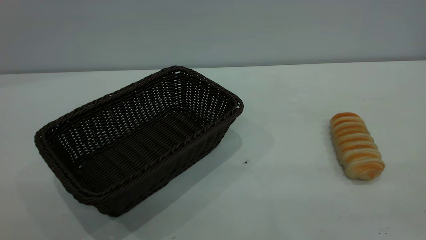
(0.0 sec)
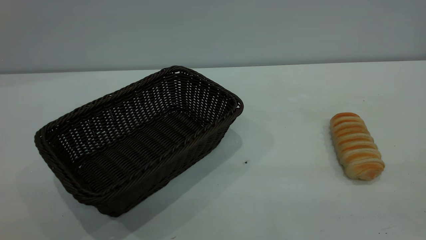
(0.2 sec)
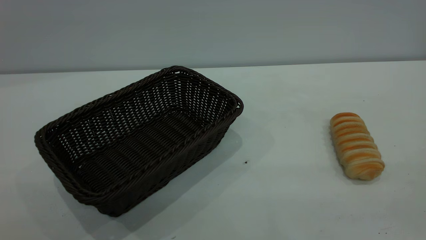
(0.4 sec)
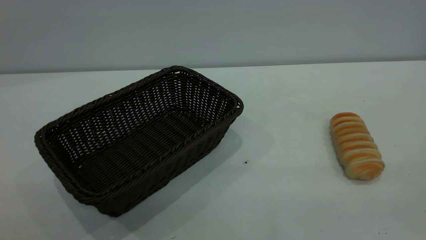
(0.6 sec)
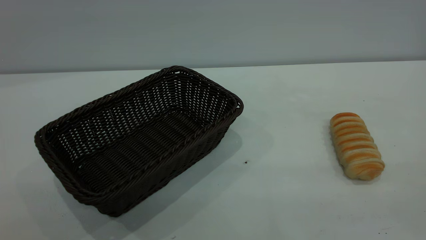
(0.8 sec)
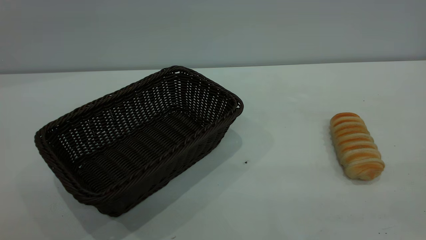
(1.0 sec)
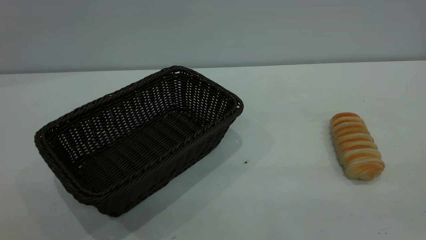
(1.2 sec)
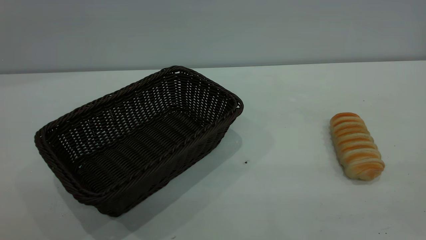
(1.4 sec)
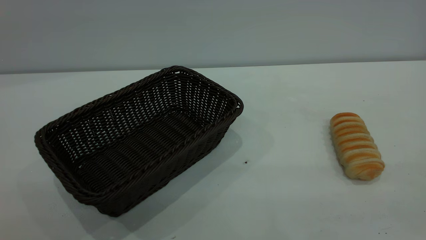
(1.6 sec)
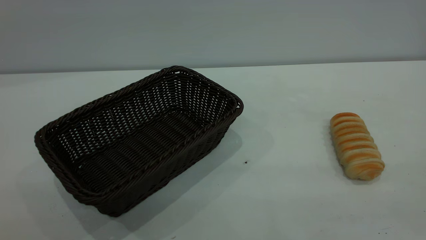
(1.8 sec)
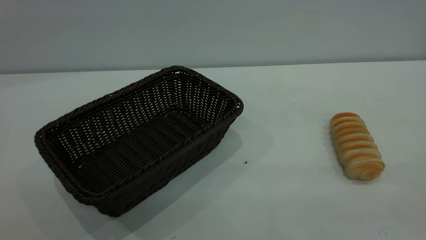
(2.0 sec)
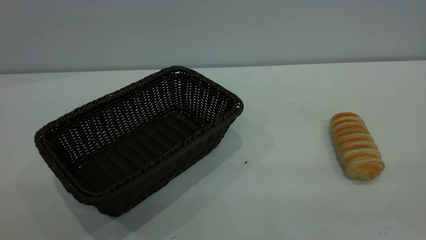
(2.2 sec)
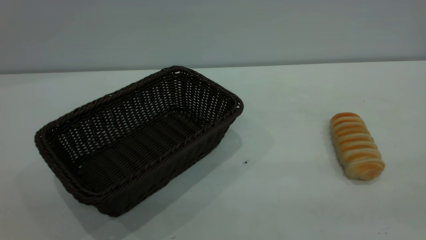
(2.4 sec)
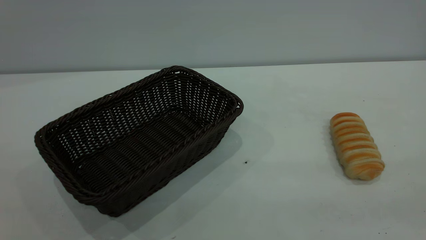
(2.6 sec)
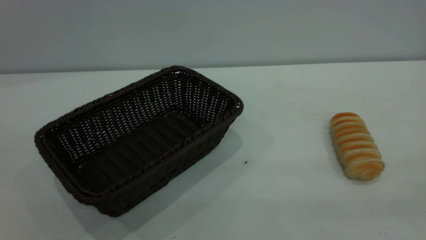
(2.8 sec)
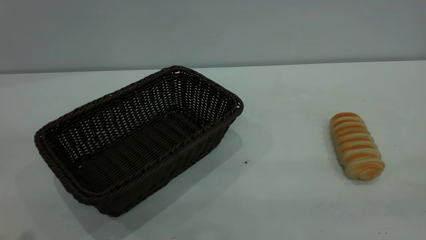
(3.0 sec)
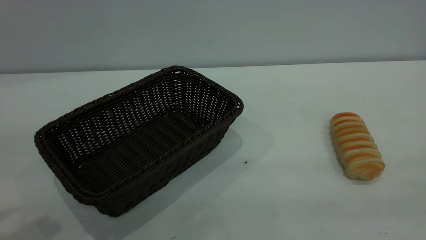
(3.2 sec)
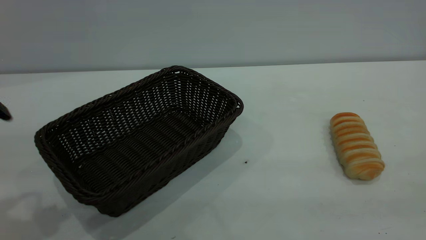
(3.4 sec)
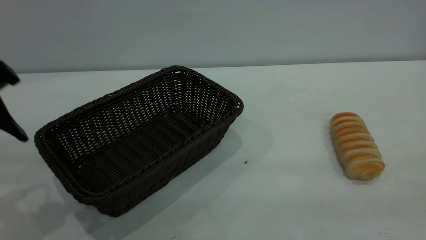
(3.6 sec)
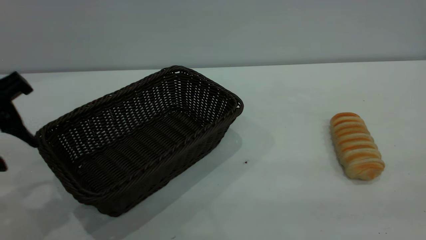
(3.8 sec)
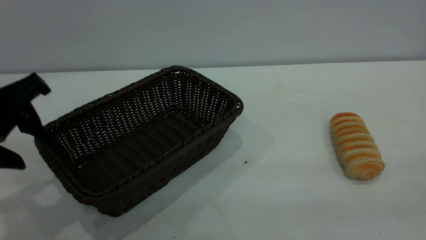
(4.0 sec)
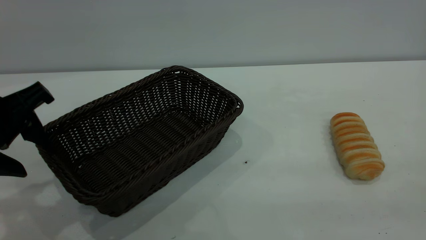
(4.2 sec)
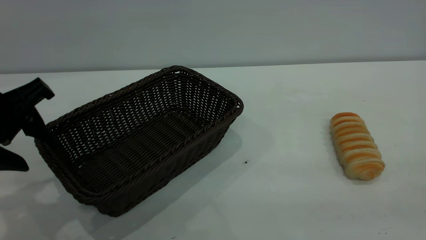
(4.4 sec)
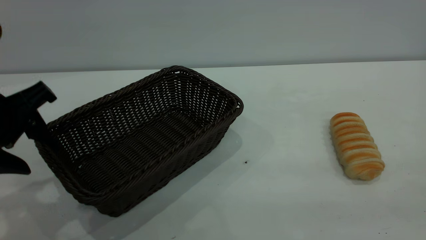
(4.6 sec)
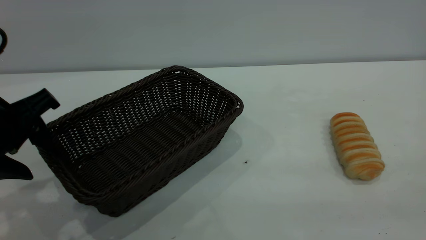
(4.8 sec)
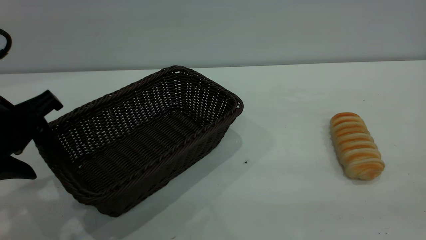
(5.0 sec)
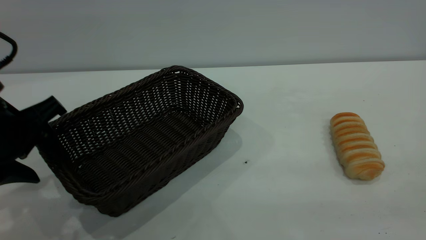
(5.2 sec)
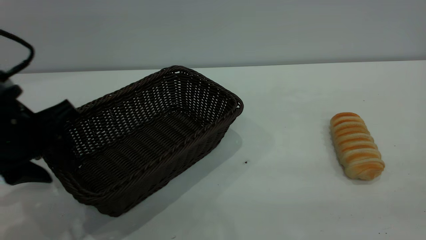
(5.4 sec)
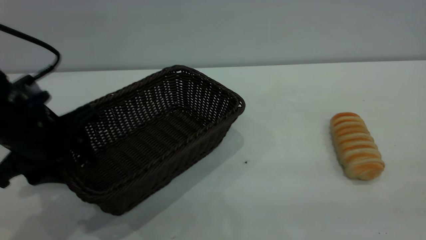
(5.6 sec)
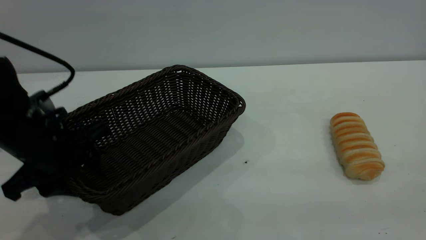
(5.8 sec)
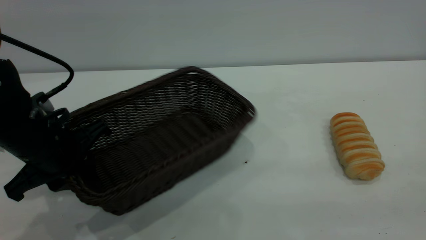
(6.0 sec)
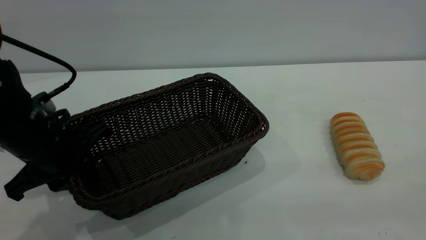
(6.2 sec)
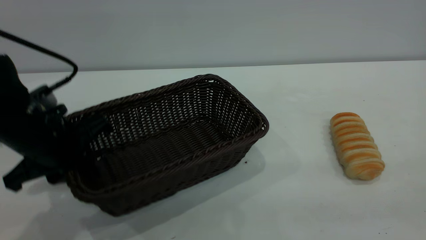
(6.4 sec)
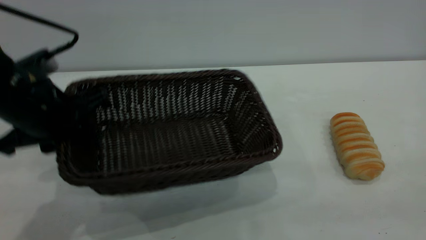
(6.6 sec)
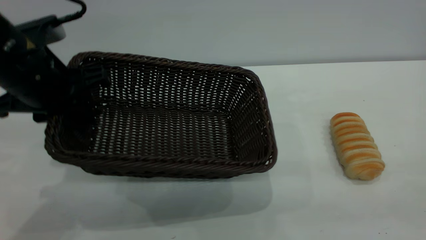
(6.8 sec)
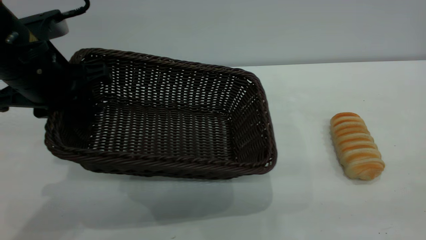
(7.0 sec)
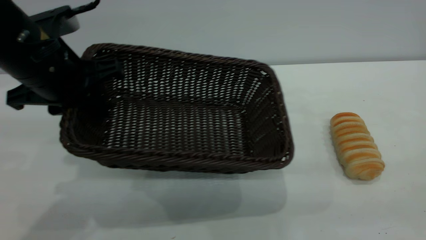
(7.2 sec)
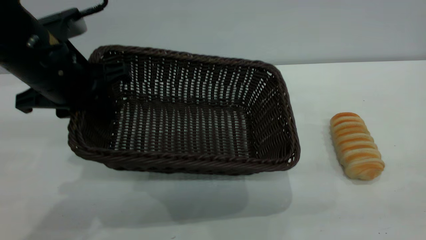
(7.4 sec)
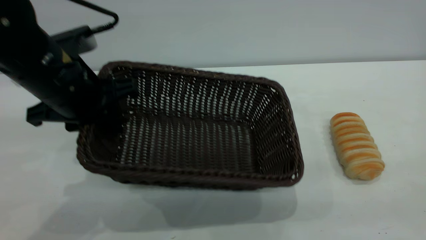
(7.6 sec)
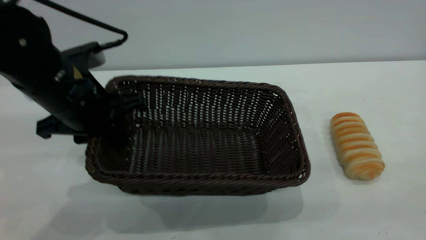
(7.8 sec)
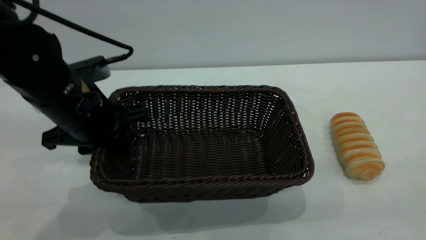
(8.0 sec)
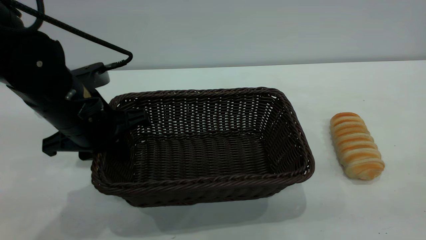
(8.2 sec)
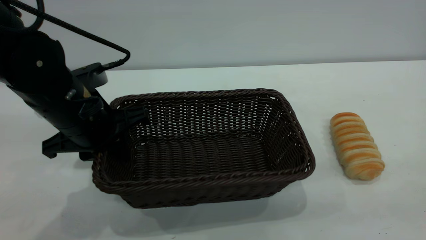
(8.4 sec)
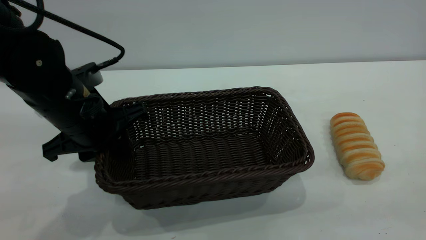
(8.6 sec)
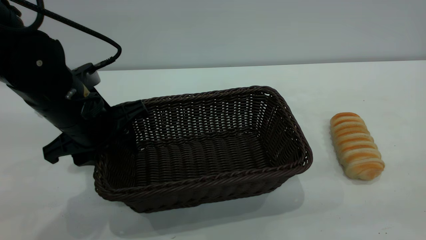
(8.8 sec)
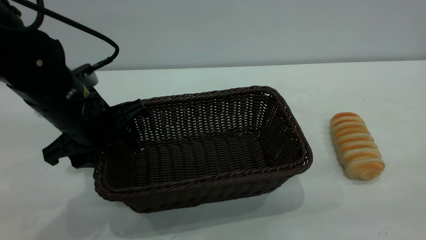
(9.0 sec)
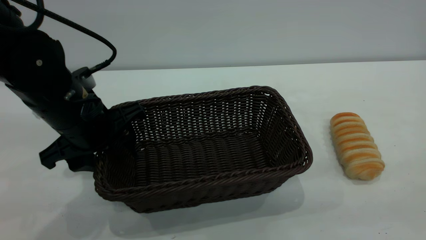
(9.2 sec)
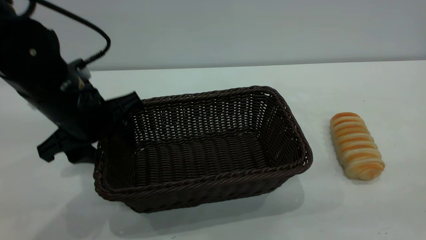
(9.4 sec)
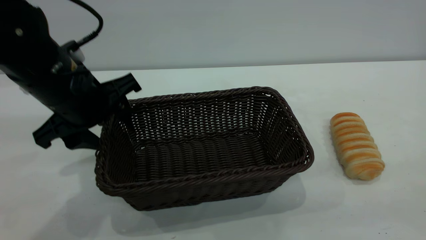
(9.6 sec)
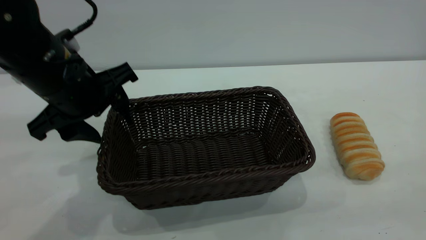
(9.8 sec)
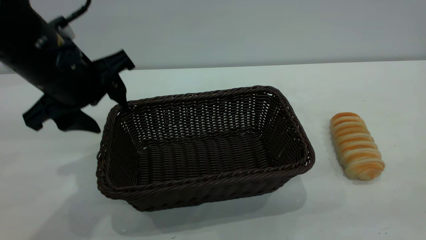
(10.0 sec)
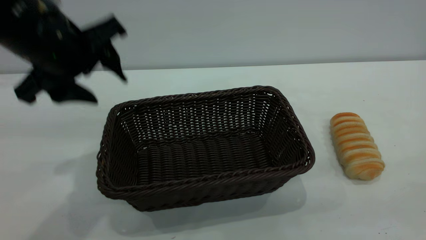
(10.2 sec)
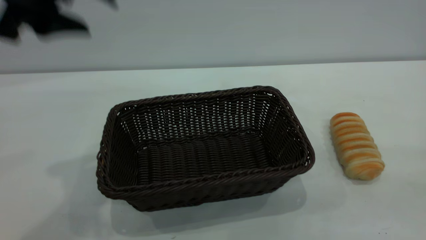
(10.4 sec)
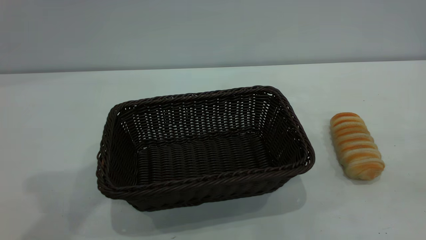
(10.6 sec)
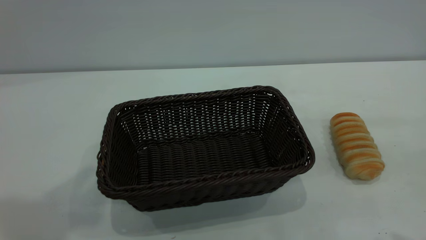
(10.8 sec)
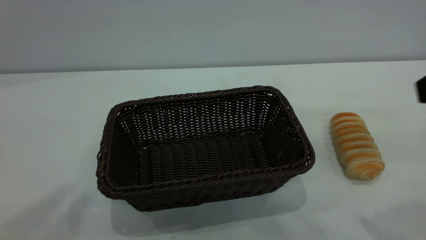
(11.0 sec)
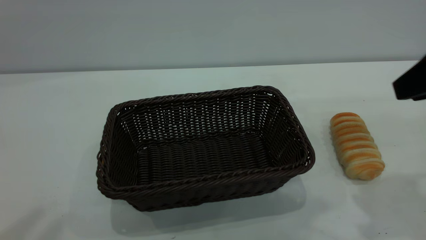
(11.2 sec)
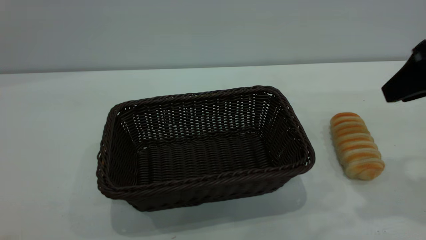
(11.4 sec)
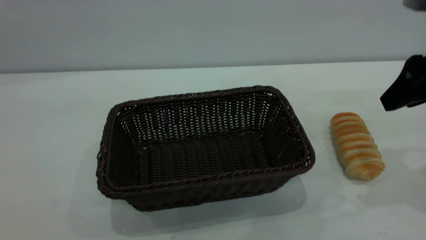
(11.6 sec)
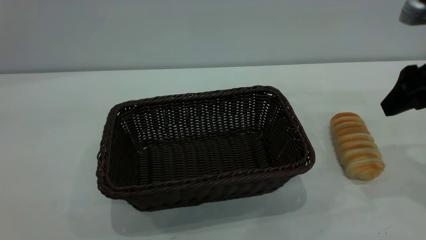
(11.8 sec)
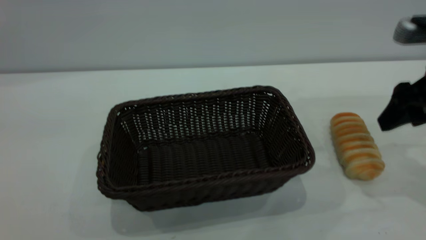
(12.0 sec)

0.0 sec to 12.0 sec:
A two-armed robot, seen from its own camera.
Task of the whole recording: One hand grasps the black basket and places it in the middle of the table, while the other hand picks up the long bread and puts it into the black basket.
Step, 0.0 sec to 10.0 sec: Move the basket to the center of view.
0.0 sec to 1.6 sec: Both grippers stay about where they are.
3.0 sec to 4.4 sec: The left gripper goes approximately 15 cm downward and forward.
4.4 sec to 6.0 sec: The left gripper goes roughly 10 cm downward, and closes.
6.0 sec to 7.6 sec: The left gripper shifts roughly 5 cm upward.
7.6 sec to 9.0 sec: The left gripper opens.
9.0 sec to 10.4 sec: The left gripper heads upward, covering approximately 20 cm.
10.4 sec to 12.0 sec: The left gripper heads backward and upward, covering roughly 35 cm, while the right gripper goes about 30 cm forward and downward, and opens.

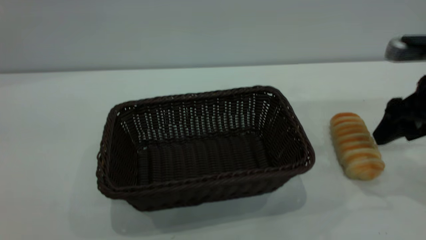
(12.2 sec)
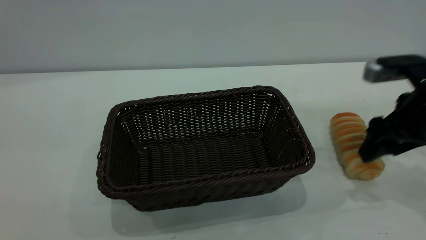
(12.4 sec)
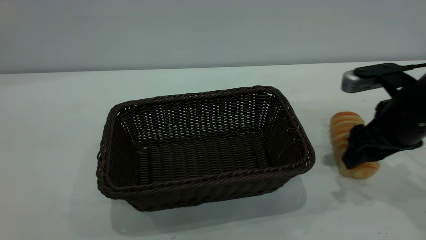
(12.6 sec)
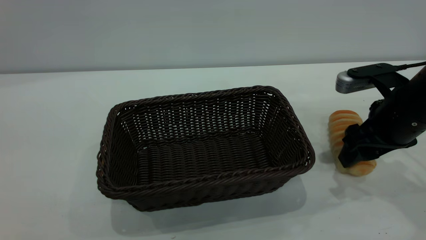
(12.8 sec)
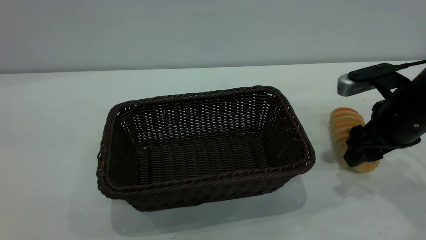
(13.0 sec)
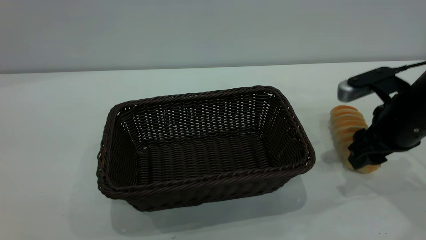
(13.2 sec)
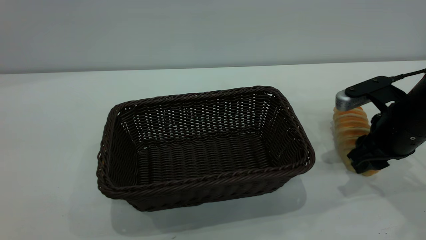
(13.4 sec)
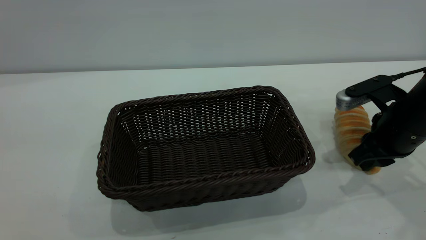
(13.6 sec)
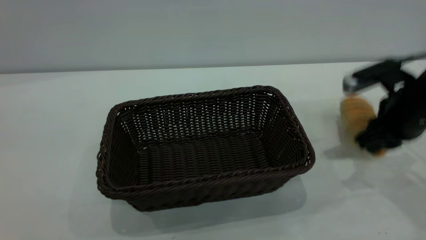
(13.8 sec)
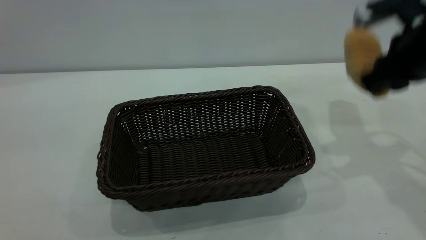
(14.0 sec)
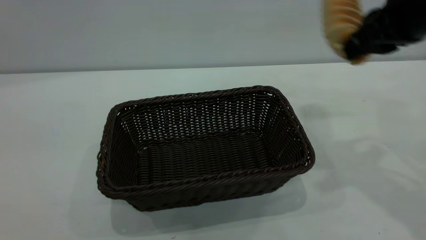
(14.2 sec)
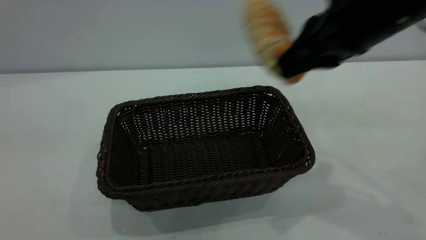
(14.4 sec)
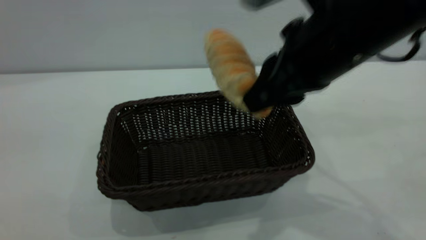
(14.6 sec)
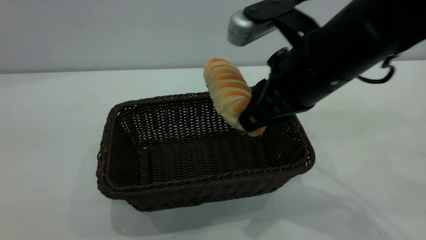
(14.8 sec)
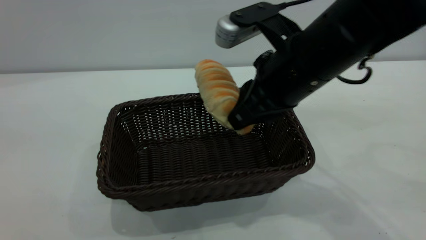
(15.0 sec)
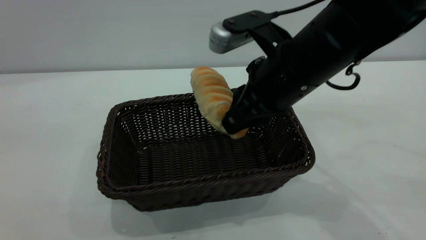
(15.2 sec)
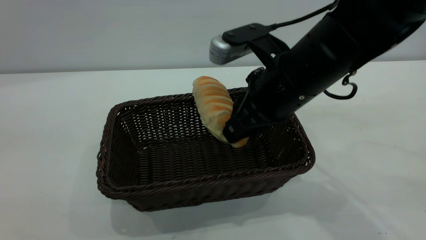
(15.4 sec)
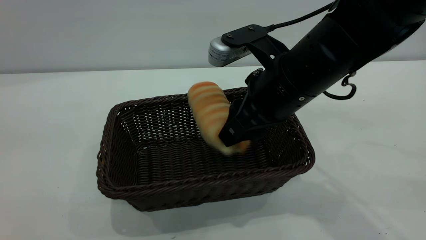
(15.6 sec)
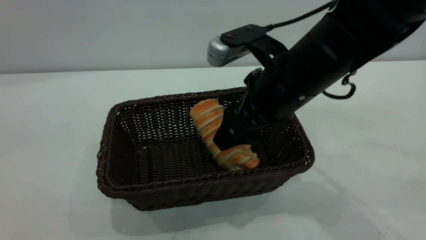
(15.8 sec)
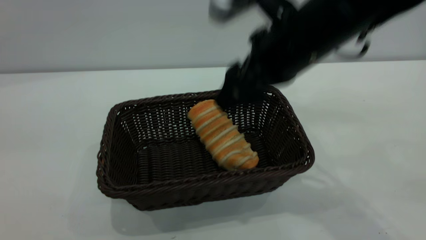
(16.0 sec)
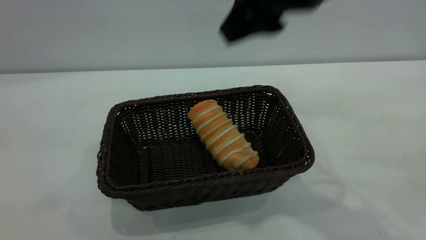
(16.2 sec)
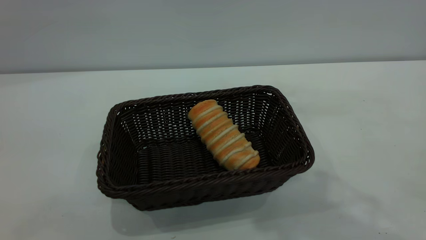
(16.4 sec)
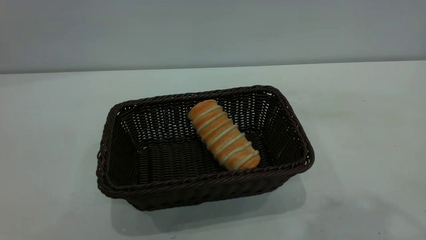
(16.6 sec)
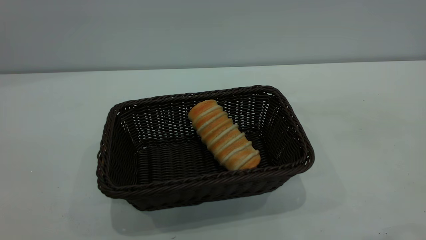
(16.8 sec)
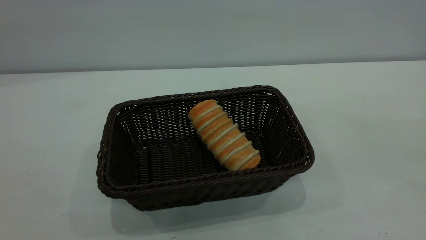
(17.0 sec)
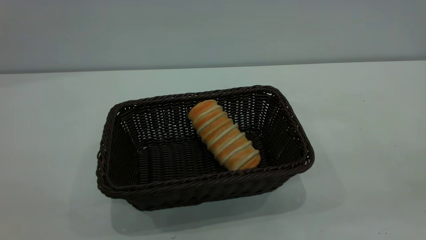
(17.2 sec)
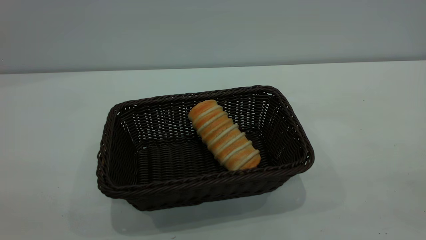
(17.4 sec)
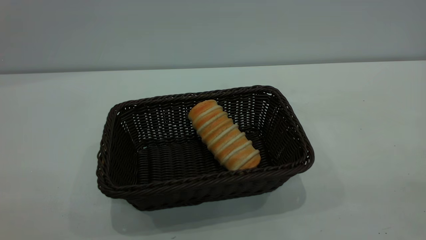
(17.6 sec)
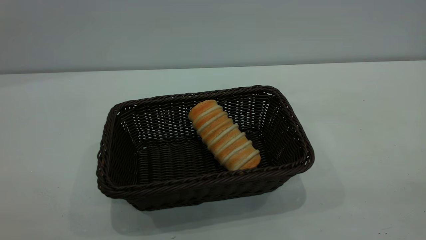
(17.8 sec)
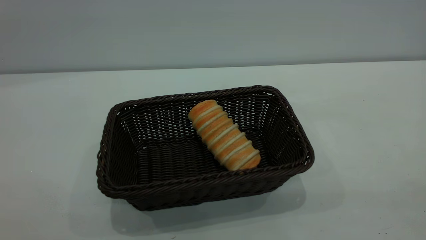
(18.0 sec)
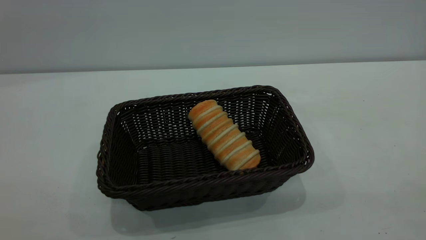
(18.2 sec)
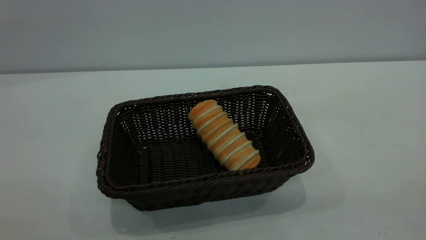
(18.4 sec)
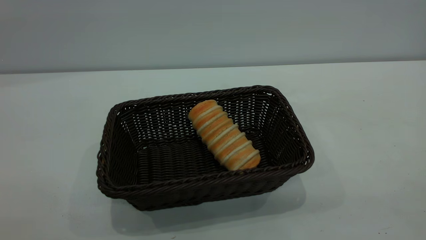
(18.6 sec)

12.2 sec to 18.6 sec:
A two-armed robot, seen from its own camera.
Task of the whole recording: One hand grasps the black basket and places it in the middle of the table, while the other hand picks up the long bread and puts it into the black basket.
Step, 14.0 sec to 16.0 sec: place the bread into the basket.
12.2 sec to 13.8 sec: The right gripper closes its fingers.
13.8 sec to 15.4 sec: The right gripper shifts roughly 15 cm to the left.
15.4 sec to 17.0 sec: The right gripper is displaced backward, upward and to the right by roughly 35 cm, and opens up; the left gripper travels downward by about 5 cm.
